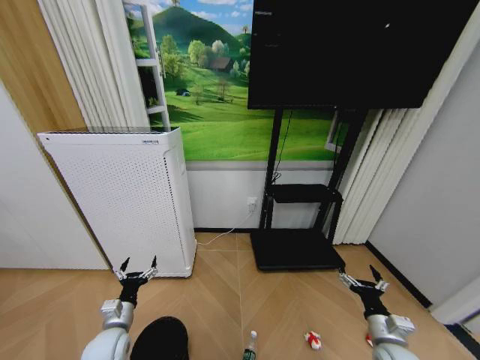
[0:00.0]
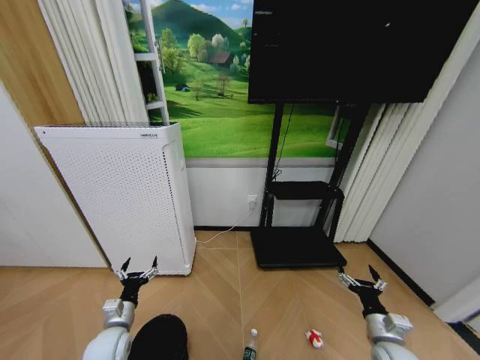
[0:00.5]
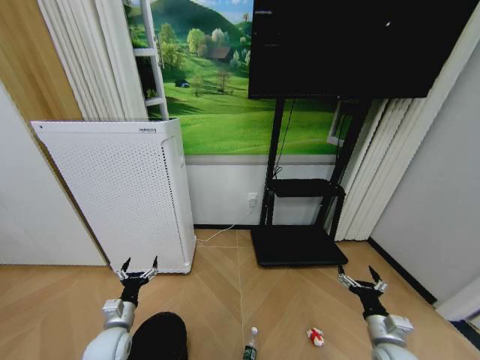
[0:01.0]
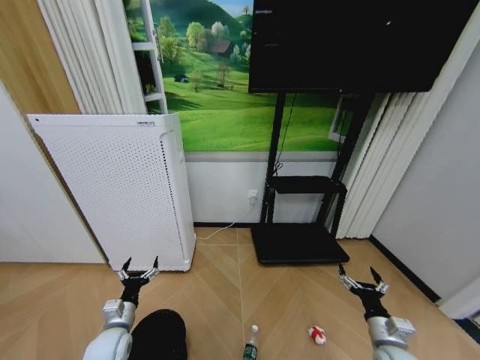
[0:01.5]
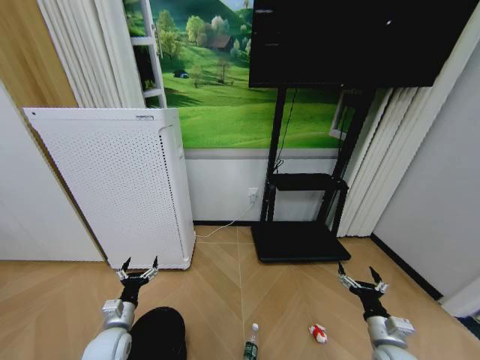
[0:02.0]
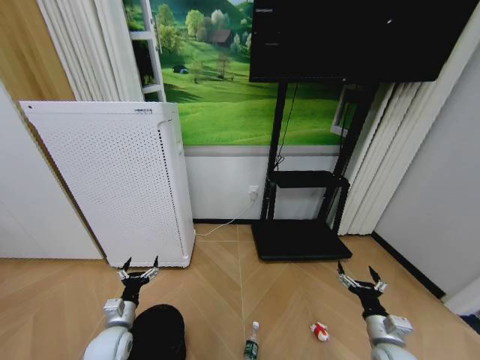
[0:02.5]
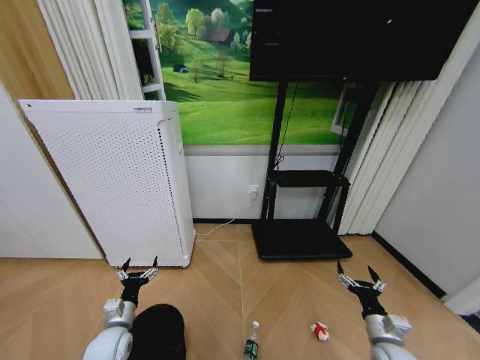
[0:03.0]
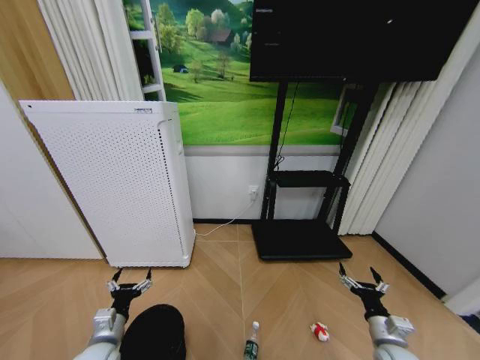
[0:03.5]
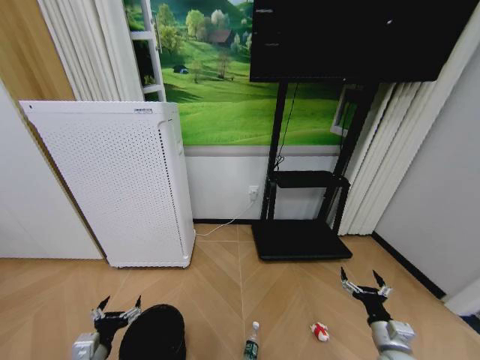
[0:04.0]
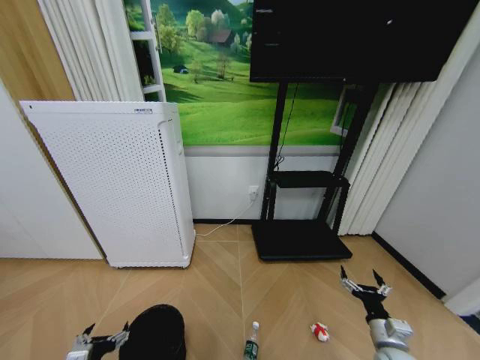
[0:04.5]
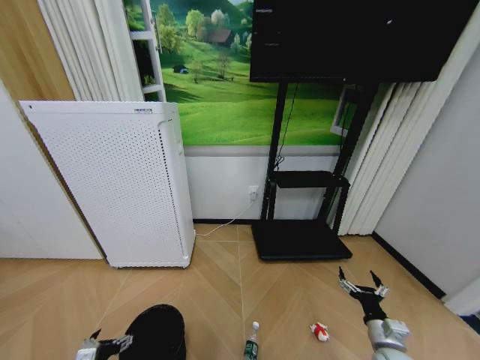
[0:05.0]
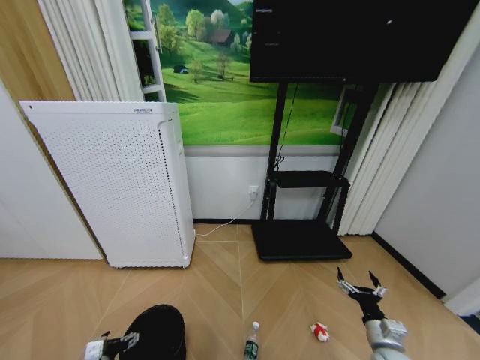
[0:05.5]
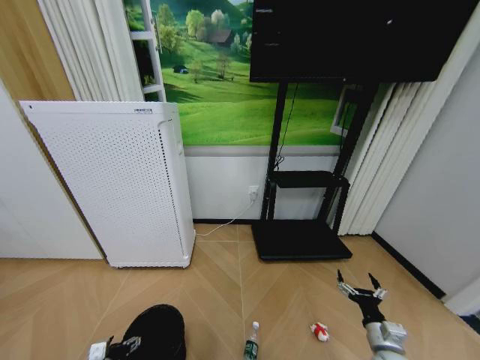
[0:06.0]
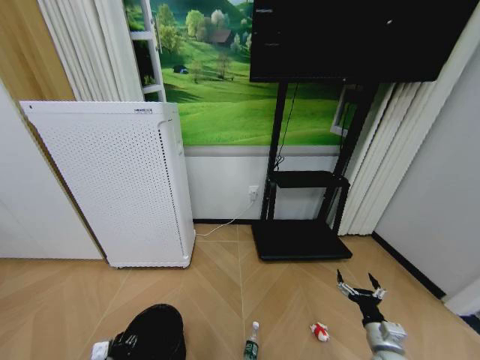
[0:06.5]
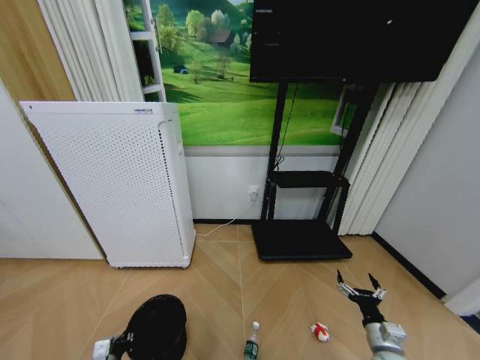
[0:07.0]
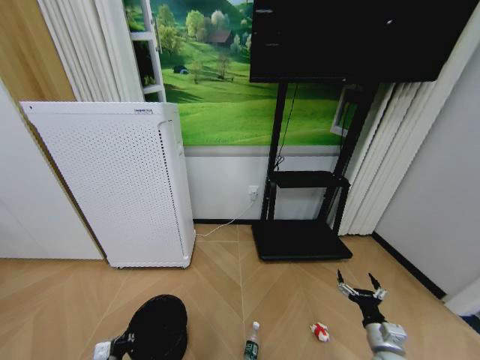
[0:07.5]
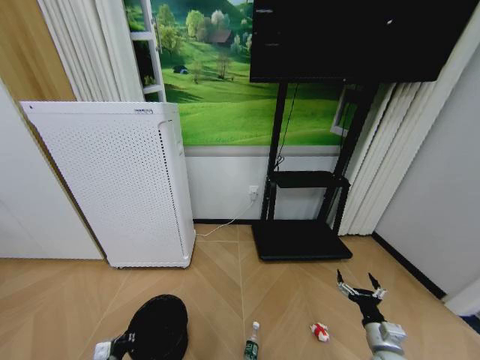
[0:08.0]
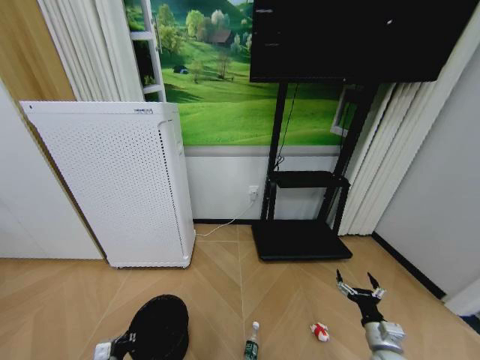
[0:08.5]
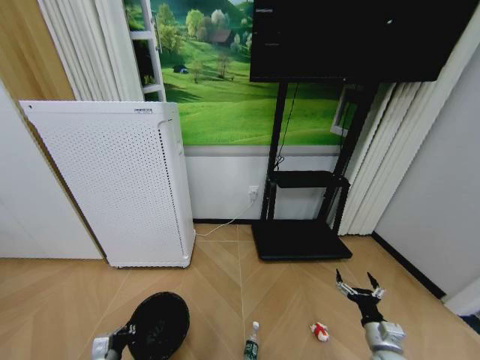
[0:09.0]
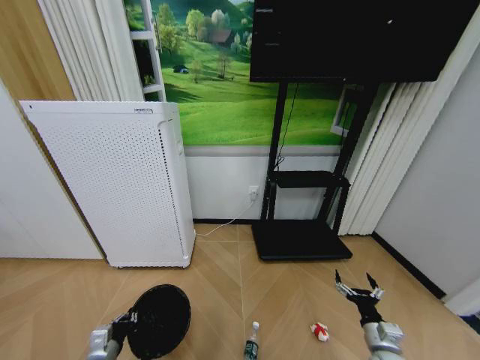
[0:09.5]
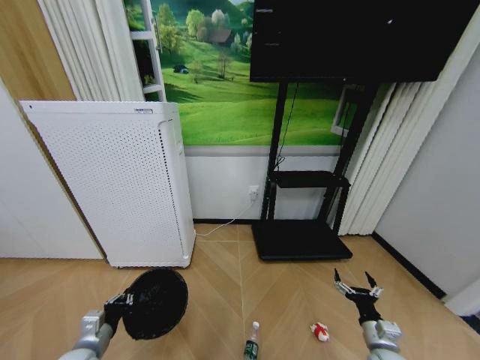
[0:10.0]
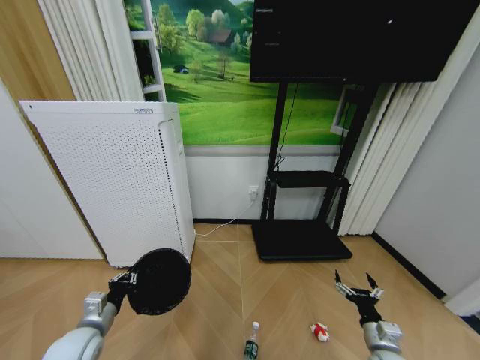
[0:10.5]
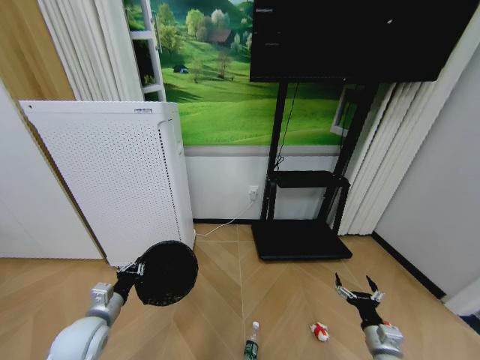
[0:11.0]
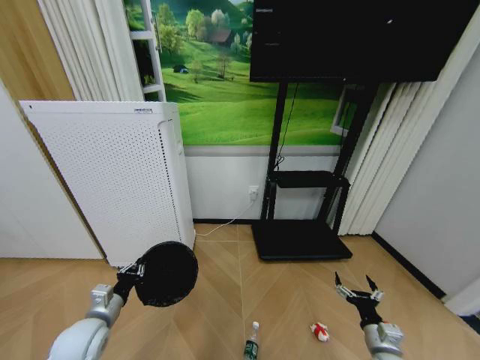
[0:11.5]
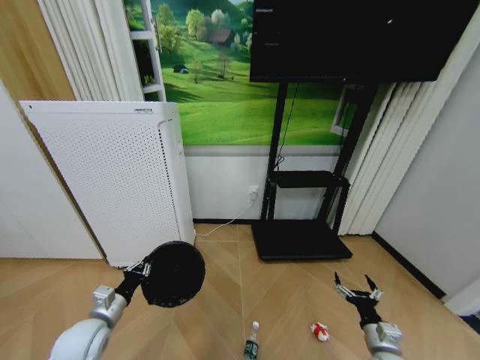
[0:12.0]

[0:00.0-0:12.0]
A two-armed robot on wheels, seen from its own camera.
Task of the whole recording: Pick up the trash bin and place the garbage on the floor into it.
0.0 to 2.0 s: The two grippers keep their place.
2.0 to 4.0 s: The left gripper heads backward, covering about 10 cm.
4.0 to 6.0 s: The left gripper is displaced downward by about 10 cm.
6.0 to 8.0 s: The left gripper closes its fingers.
8.0 to 10.0 s: The left gripper goes approximately 10 cm upward.
10.0 to 12.0 s: The left gripper goes roughly 5 cm forward.

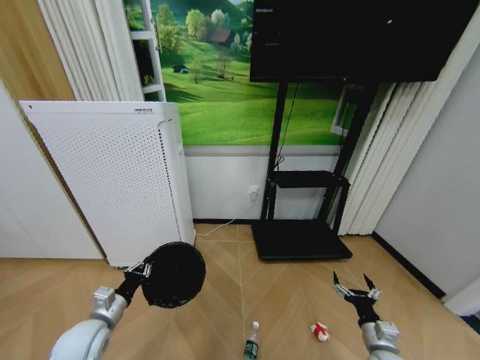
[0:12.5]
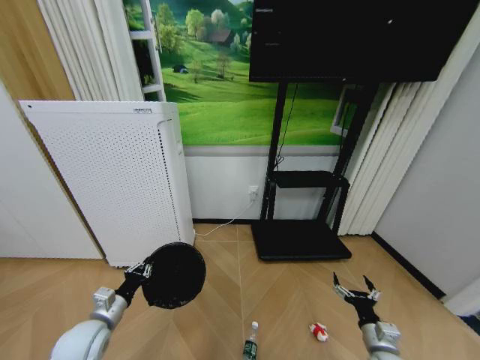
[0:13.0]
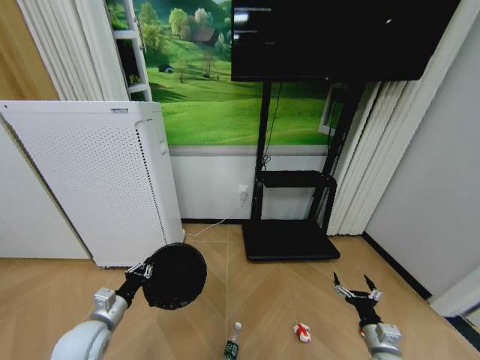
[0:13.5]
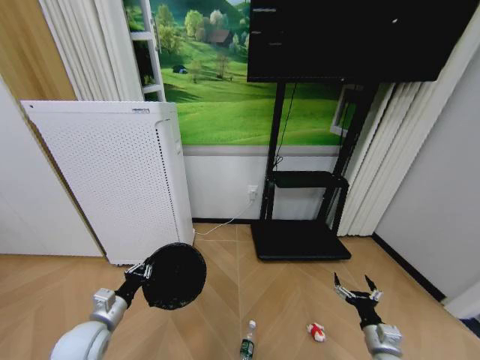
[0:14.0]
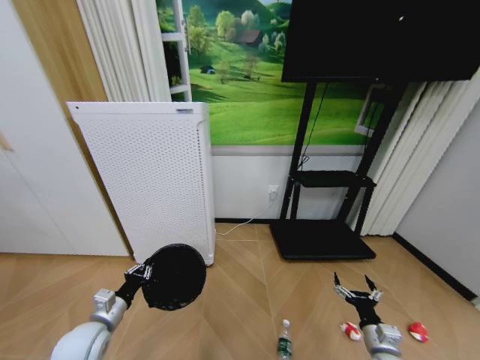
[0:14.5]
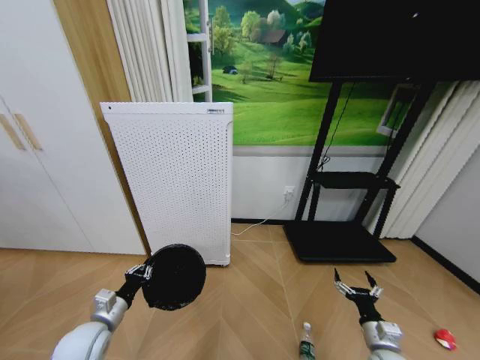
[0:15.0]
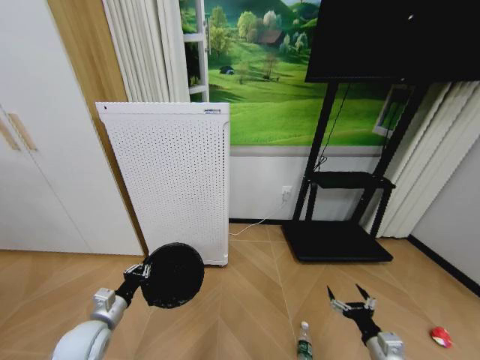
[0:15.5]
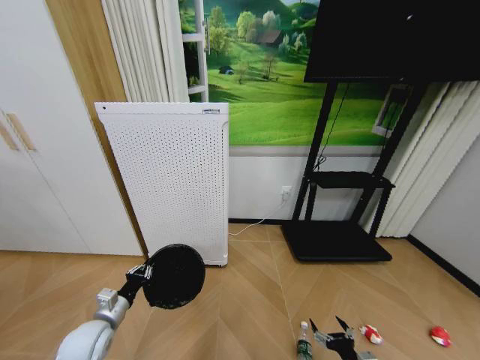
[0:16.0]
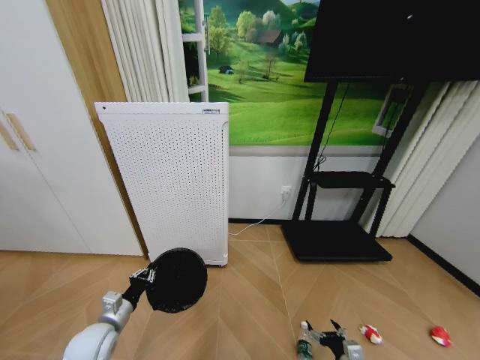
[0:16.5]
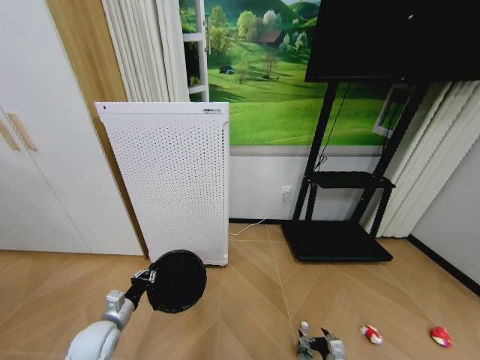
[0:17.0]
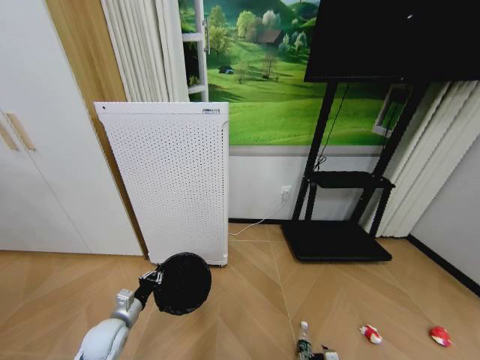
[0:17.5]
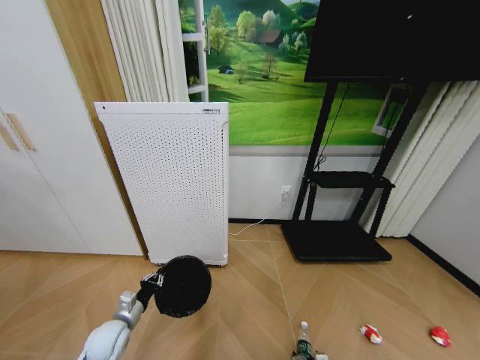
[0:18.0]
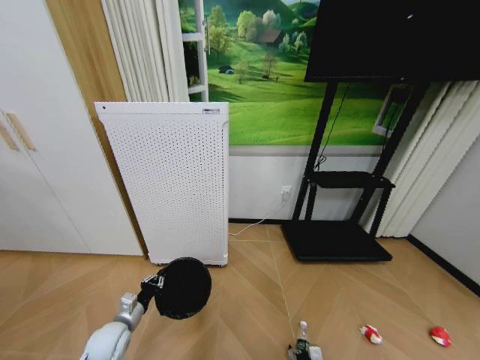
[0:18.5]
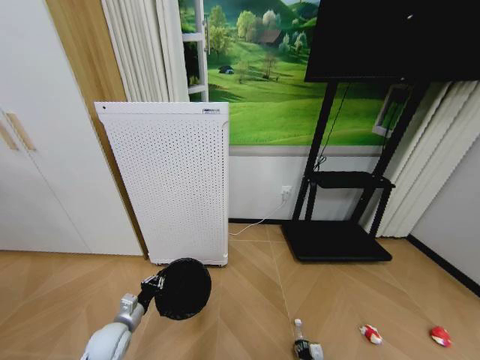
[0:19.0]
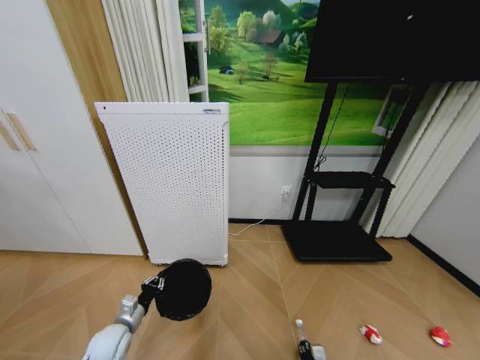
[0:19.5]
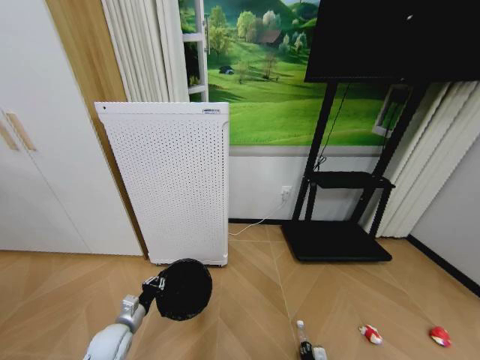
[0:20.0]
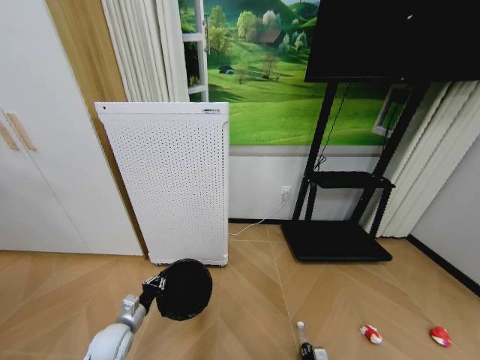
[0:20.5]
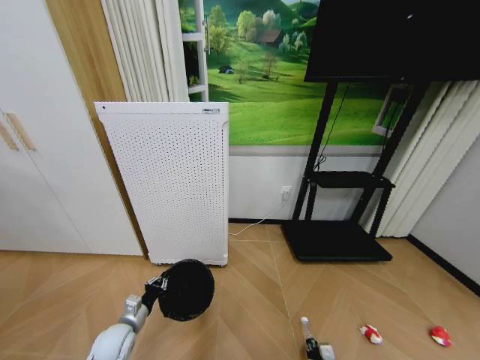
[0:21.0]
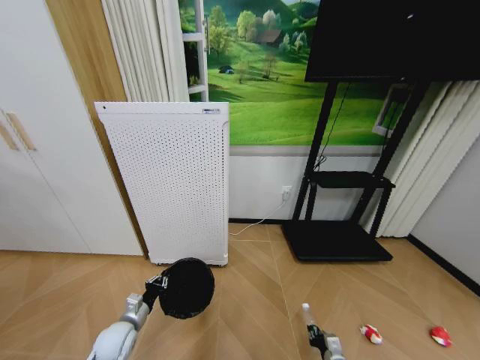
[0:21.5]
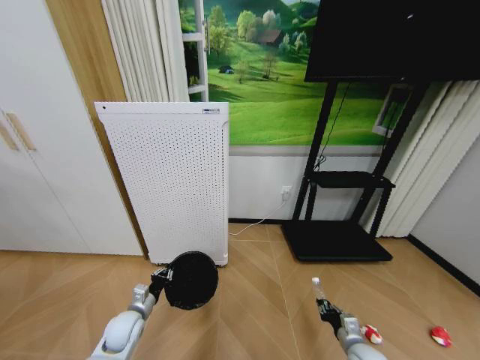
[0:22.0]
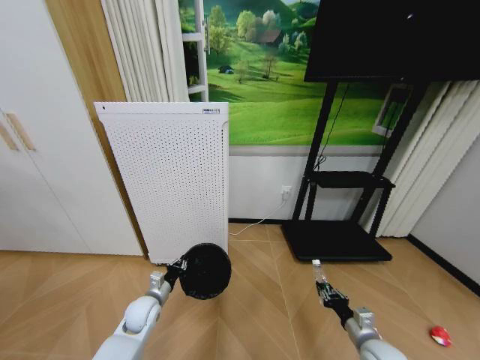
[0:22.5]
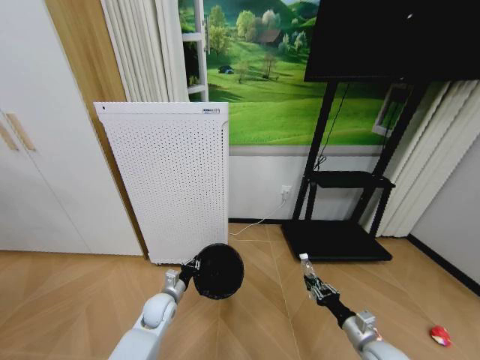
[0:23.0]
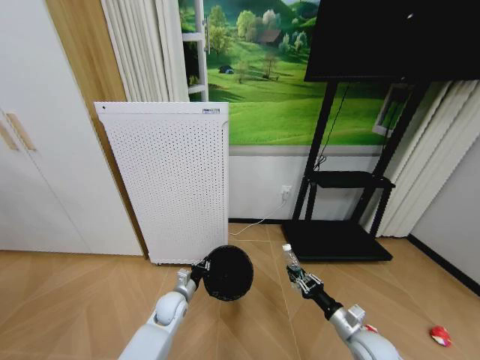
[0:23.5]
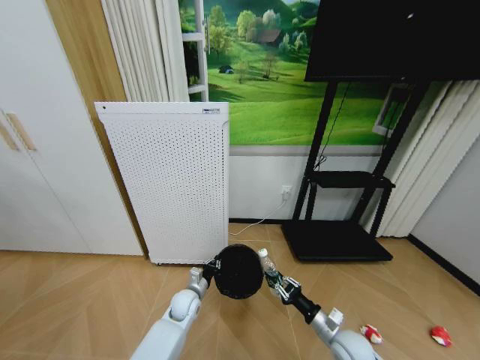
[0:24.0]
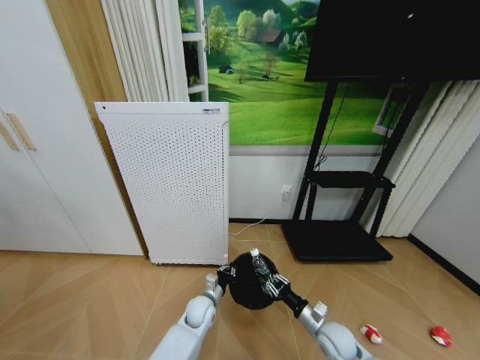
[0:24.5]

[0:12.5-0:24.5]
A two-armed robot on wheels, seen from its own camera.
Task of the whole recording: Pick up the trash bin and place the garbage on the floor into it.
14.5 to 16.5 s: The right gripper travels downward by about 5 cm.
16.5 to 18.5 s: The right gripper heads downward and to the left, covering some 15 cm. The left gripper shifts by about 5 cm.
20.5 to 22.5 s: The left gripper travels forward and to the right by some 10 cm. Meanwhile the right gripper travels upward by roughly 20 cm.
22.5 to 24.5 s: The left gripper is displaced to the right by roughly 15 cm. Meanwhile the right gripper heads to the left, covering some 10 cm.

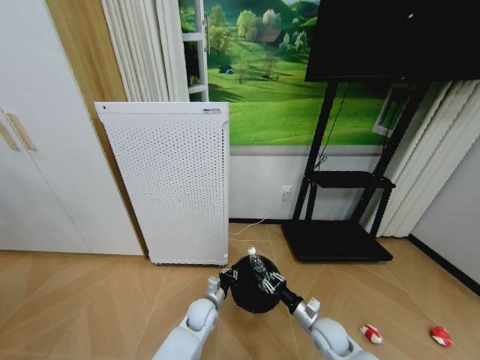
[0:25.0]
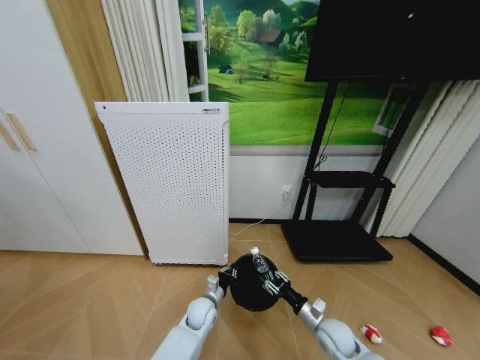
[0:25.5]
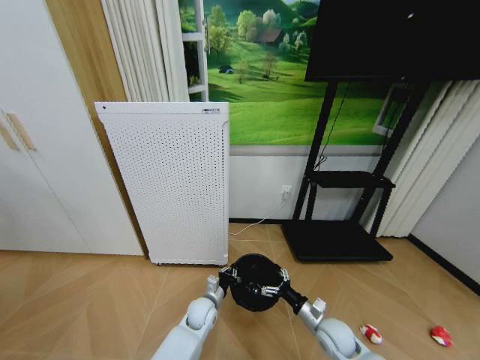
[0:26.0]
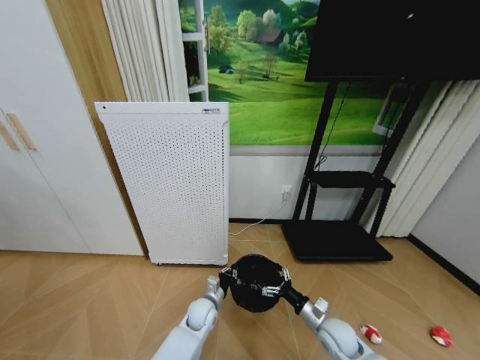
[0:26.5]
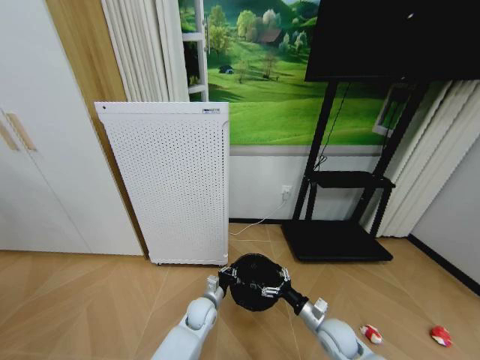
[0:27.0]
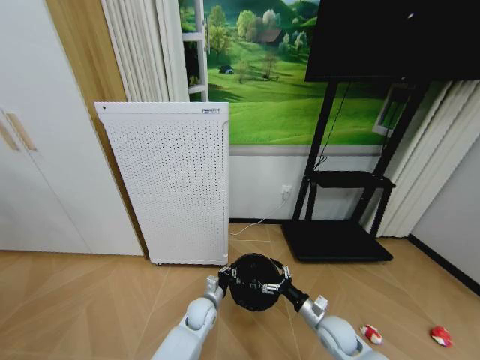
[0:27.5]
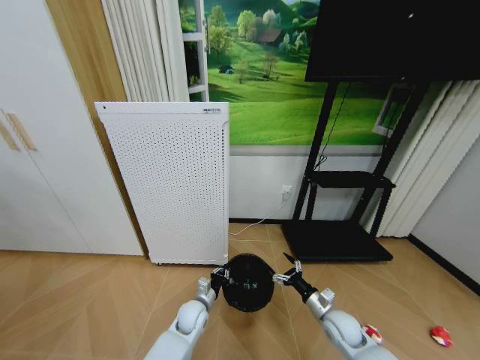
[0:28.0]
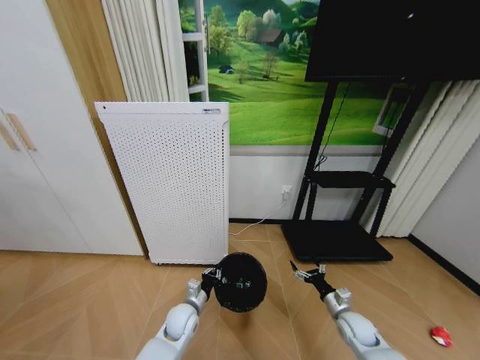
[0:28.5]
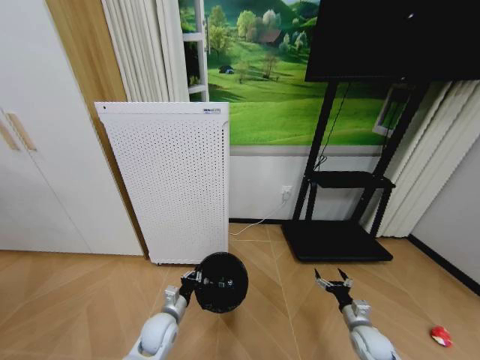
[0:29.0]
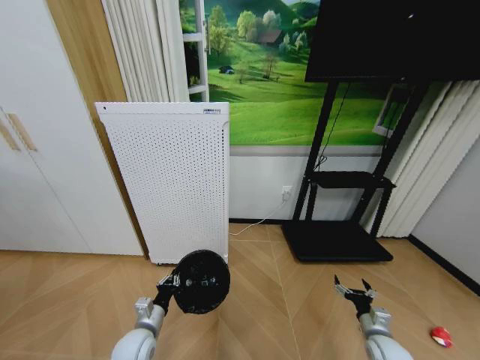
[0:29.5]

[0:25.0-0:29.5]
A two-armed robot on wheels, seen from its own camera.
Task of the whole recording: Pick up the trash bin and place the garbage on the floor into it.
25.0 to 27.0 s: The right gripper opens its fingers.
27.0 to 29.5 s: The left gripper shifts approximately 20 cm to the left and backward, while the right gripper moves to the right, some 15 cm.
